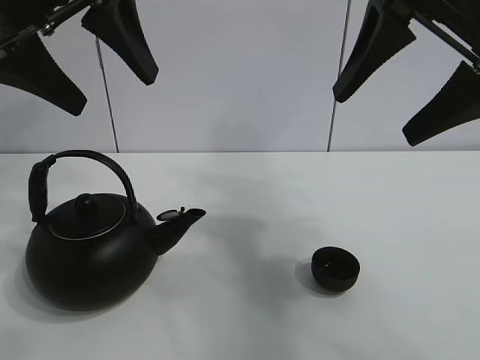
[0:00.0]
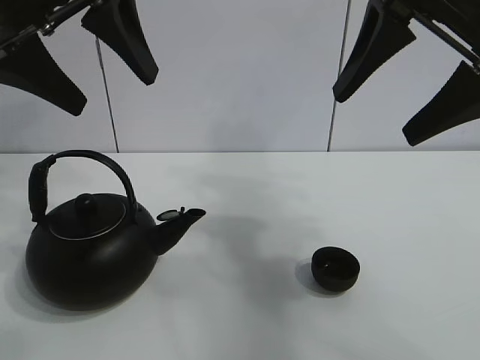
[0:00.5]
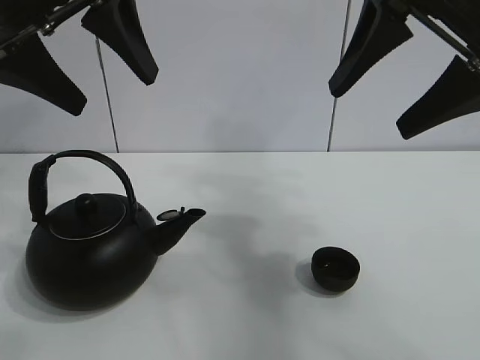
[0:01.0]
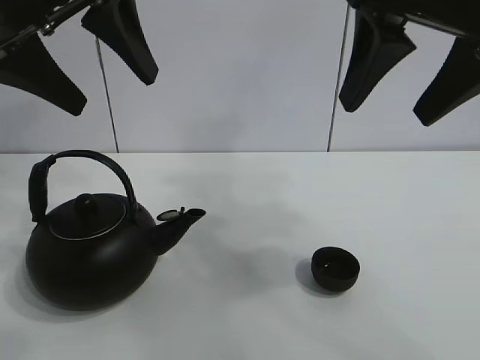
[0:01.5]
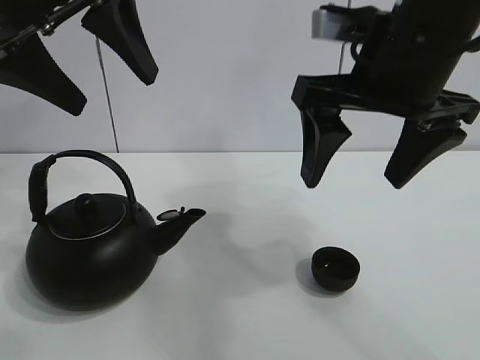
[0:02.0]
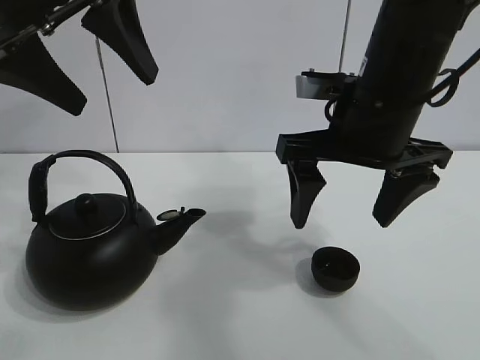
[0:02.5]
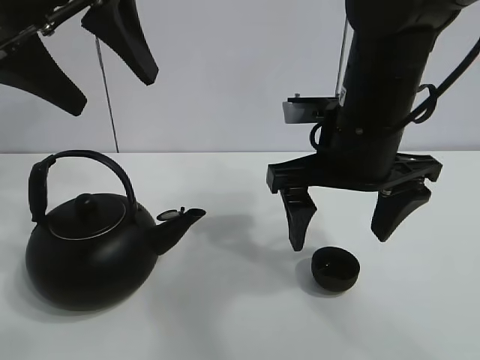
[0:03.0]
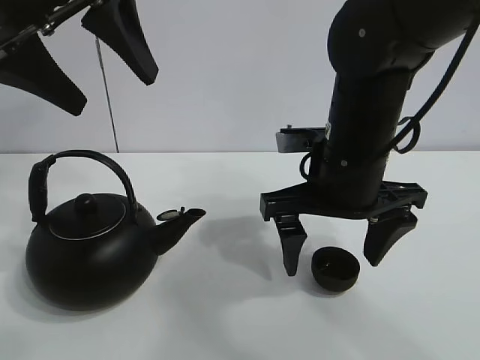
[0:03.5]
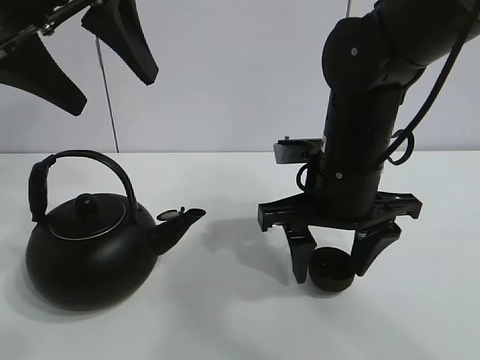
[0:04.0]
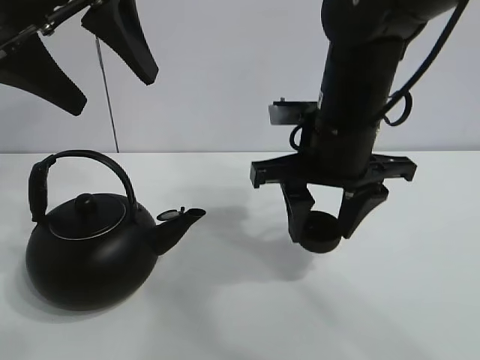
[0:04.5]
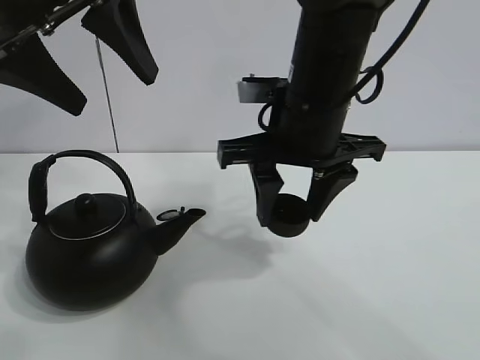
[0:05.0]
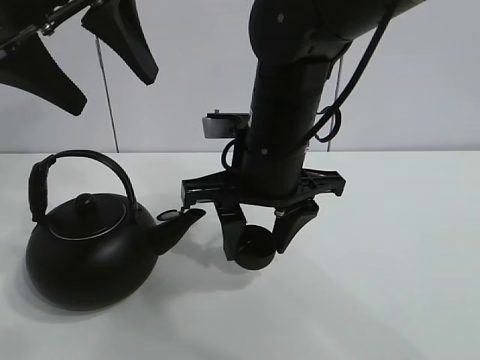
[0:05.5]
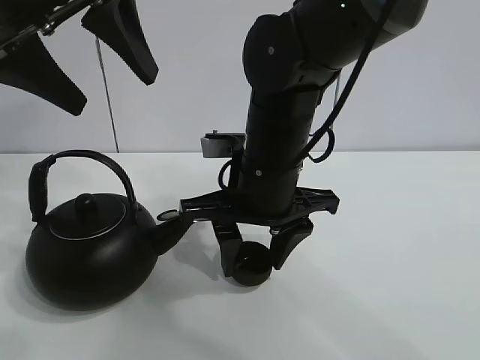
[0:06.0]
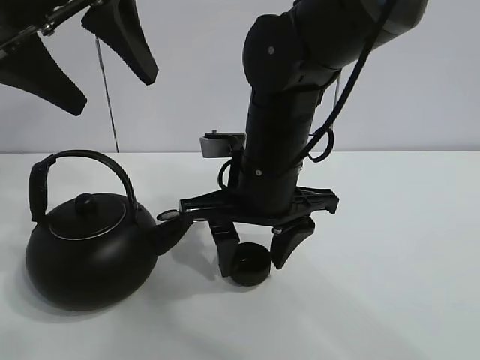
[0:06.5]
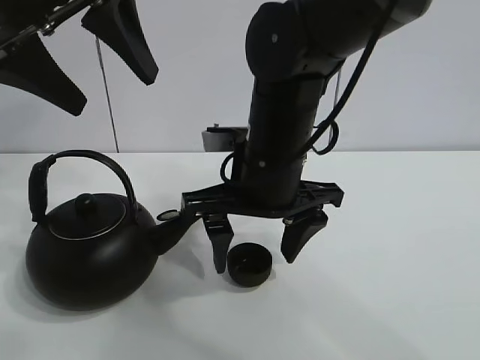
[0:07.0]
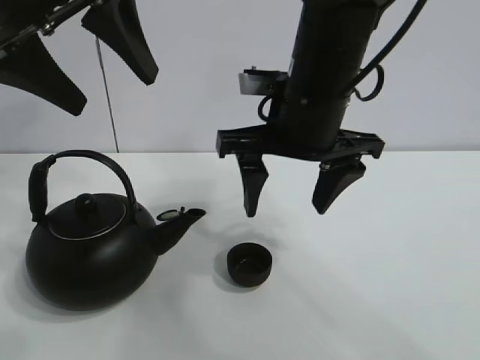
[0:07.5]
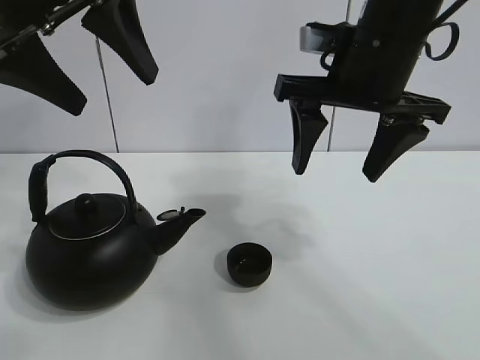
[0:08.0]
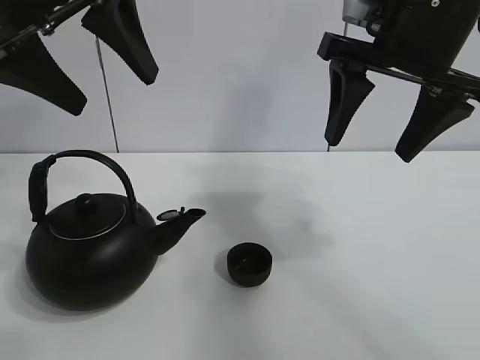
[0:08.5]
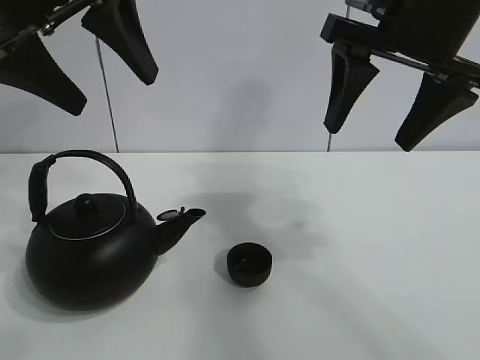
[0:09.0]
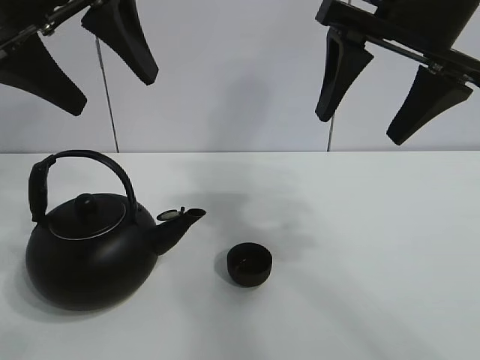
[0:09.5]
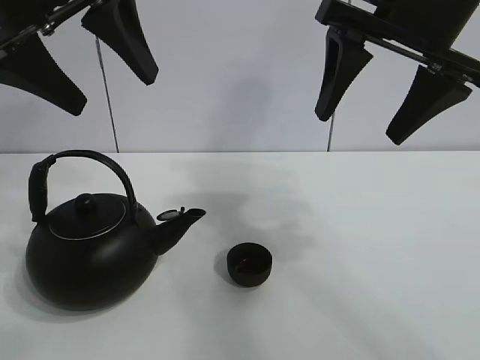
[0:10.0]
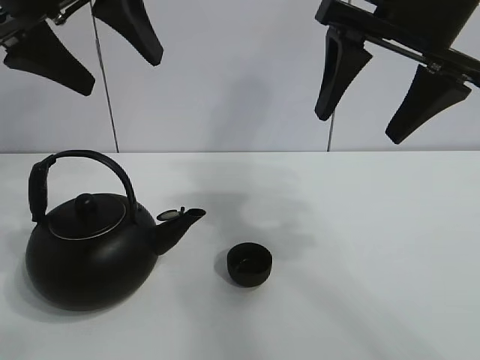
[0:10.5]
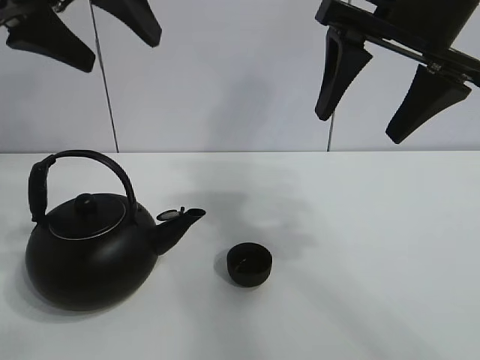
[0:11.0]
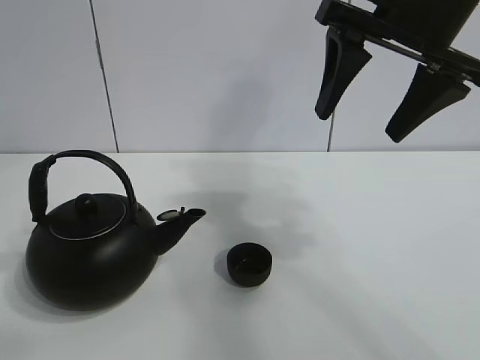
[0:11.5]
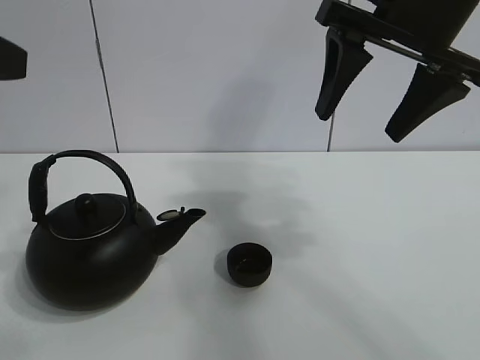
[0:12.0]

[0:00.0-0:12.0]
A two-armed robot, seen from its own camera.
Task of the whole recording: pour tea into the teacup.
Step, 0:00.0 to 0:04.0: Pick up the teacup with the right gripper.
Step, 0:04.5 to 0:06.5: Place the teacup in the center of view with the right gripper.
0:02.0 to 0:04.0: The right gripper moves downward, some 10 cm, and closes up.
0:04.0 to 0:06.0: The right gripper is displaced to the left by some 5 cm, and closes up.
0:06.0 to 0:08.0: The right gripper moves upward and to the right, approximately 15 cm, and opens its fingers.
0:08.0 to 0:10.0: The right gripper goes roughly 5 cm upward.
0:10.0 to 0:12.0: The left gripper is displaced backward and to the left by approximately 15 cm.

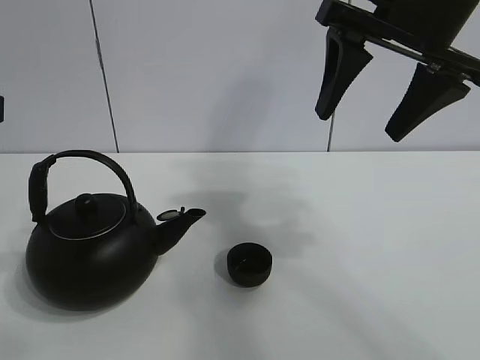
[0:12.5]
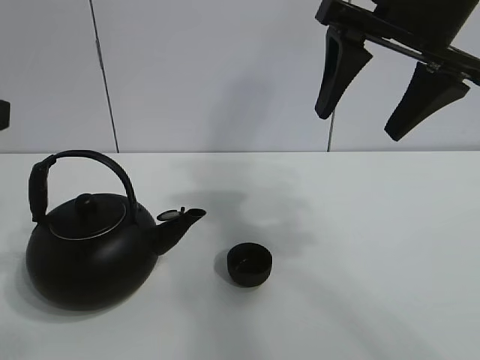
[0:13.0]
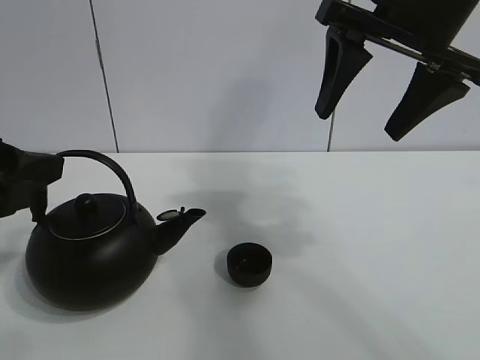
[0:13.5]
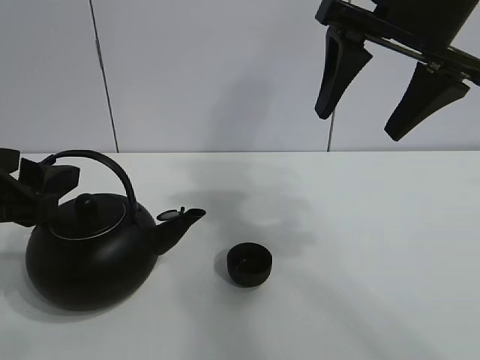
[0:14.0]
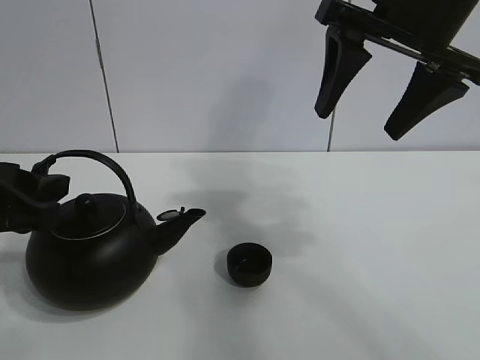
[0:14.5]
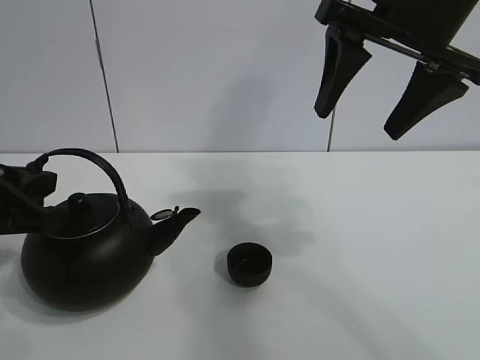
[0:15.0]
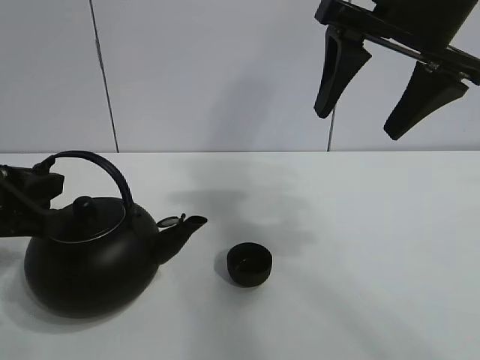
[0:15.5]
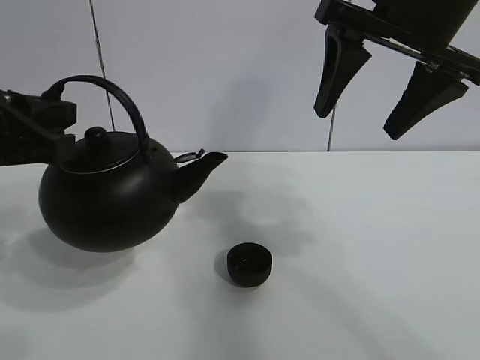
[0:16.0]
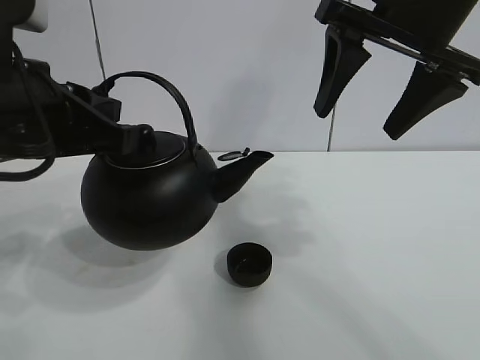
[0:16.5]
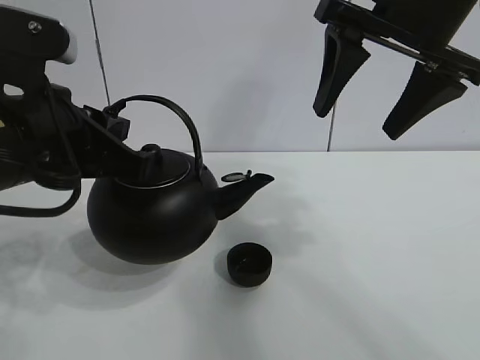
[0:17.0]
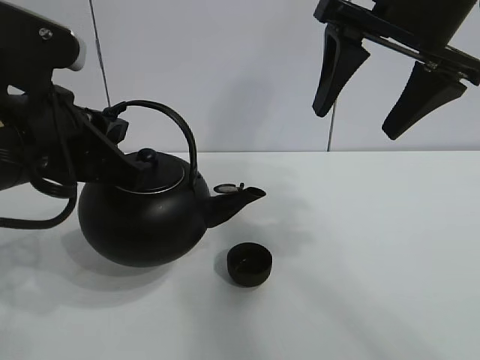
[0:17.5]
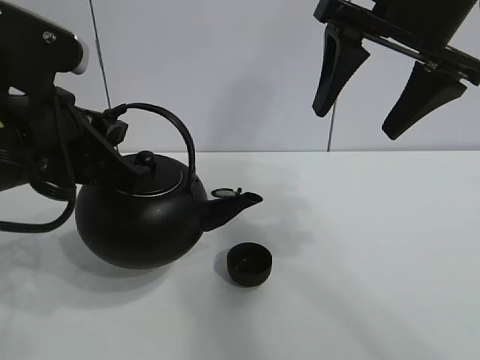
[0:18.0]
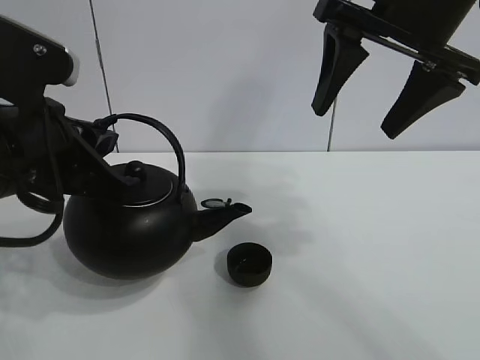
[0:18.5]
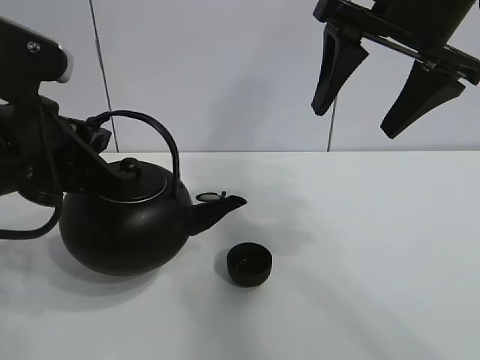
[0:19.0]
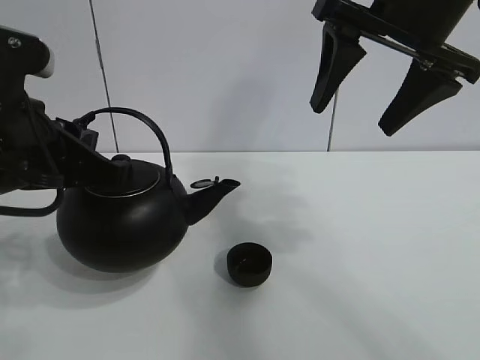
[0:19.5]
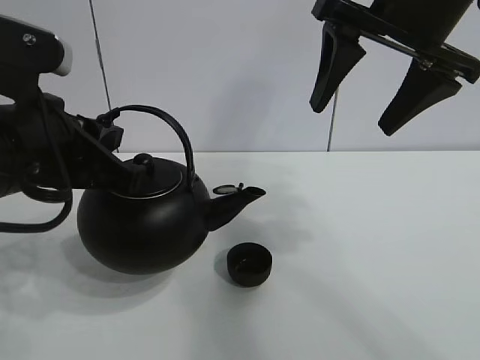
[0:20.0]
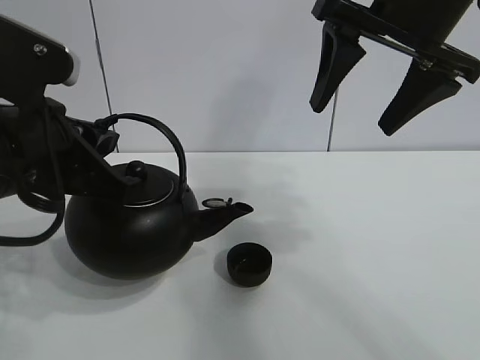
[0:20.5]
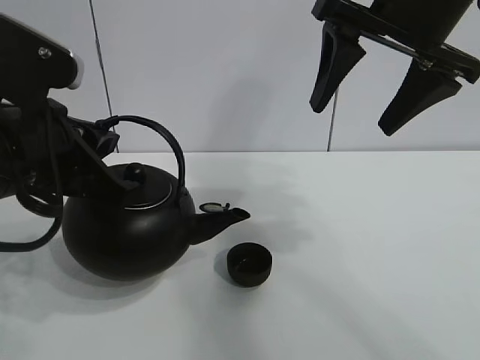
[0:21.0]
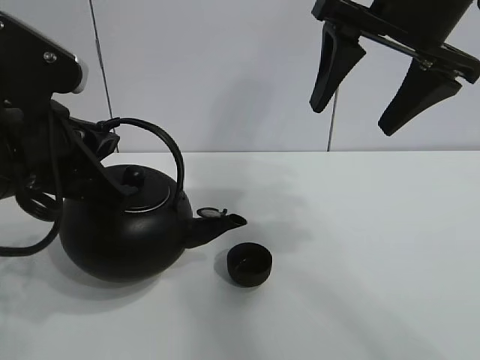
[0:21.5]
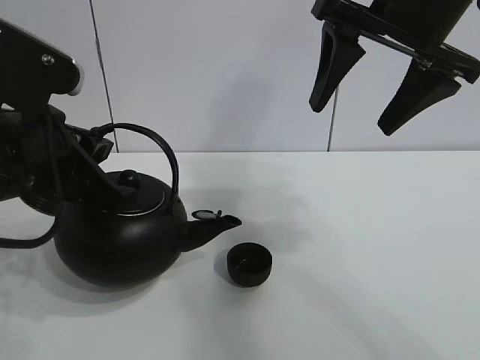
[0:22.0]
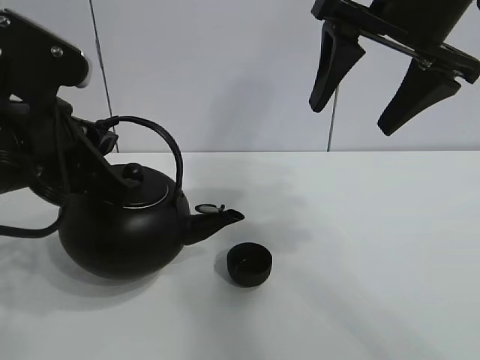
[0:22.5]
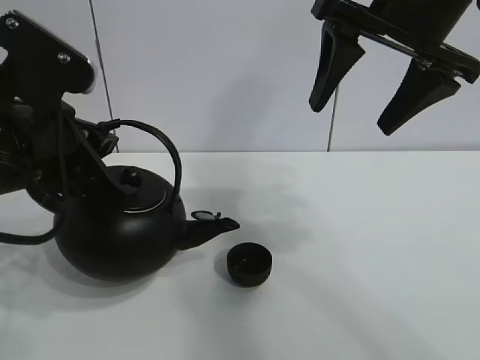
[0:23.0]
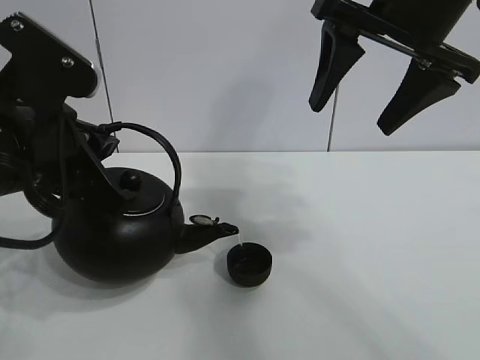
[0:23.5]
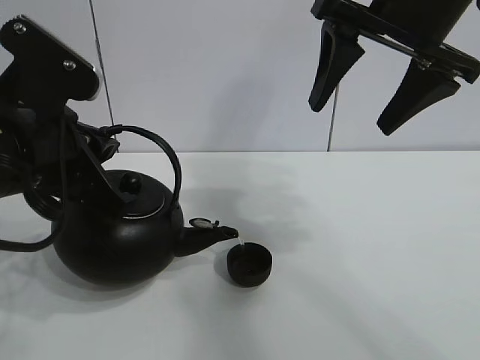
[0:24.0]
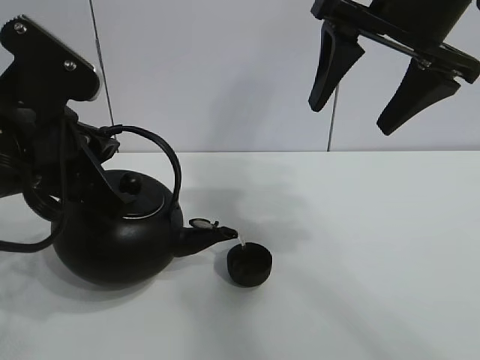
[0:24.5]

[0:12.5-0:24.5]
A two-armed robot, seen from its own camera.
Task of the whole recording: pour tea into the teacup.
Step, 0:12.5 to 0:14.5: Pick up the teapot with the left gripper.
0:12.5 to 0:14.5: The left gripper heads downward and forward, covering some 10 cm.
0:14.5 to 0:16.5: The left gripper moves to the right and upward, about 10 cm, and closes.
0:16.5 to 0:22.5: The grippers move only a little.
0:22.5 to 0:24.5: The grippers move only a little.

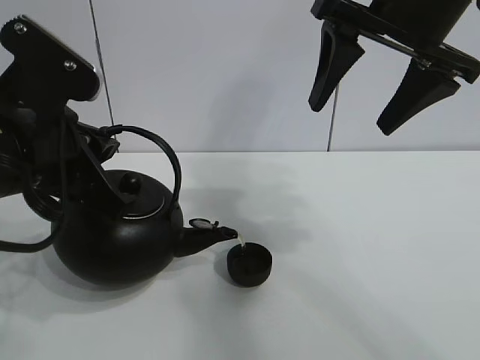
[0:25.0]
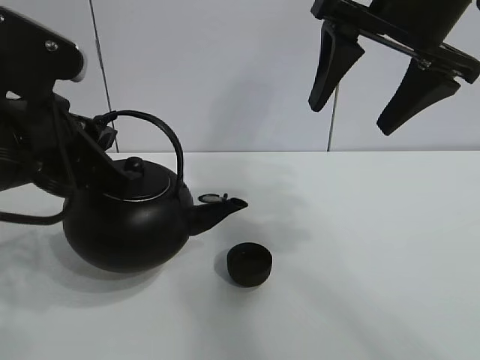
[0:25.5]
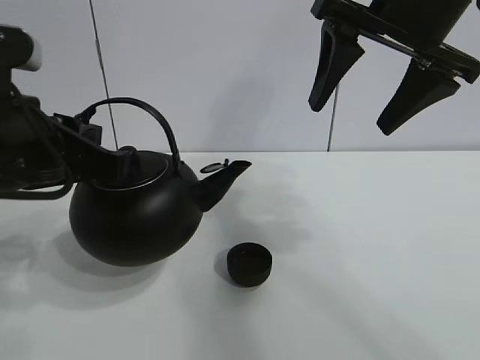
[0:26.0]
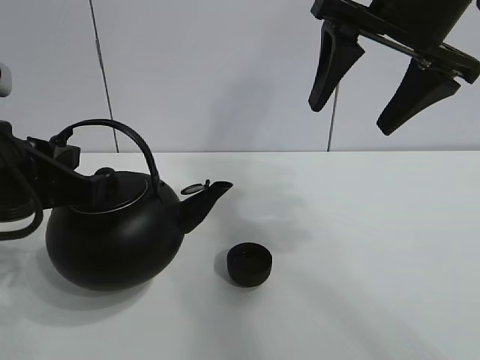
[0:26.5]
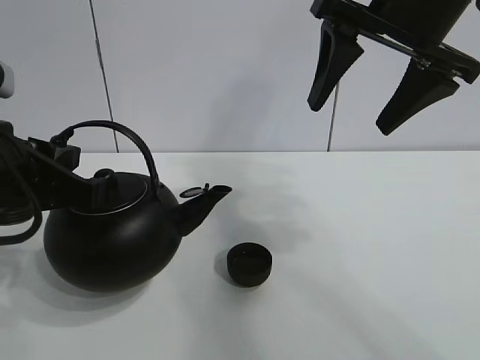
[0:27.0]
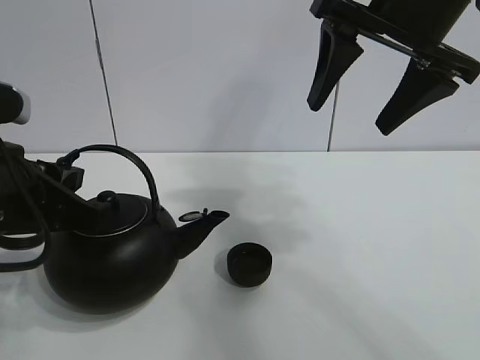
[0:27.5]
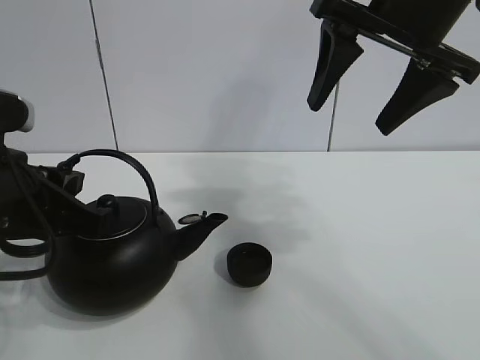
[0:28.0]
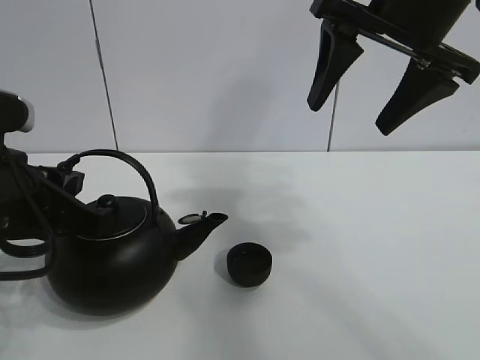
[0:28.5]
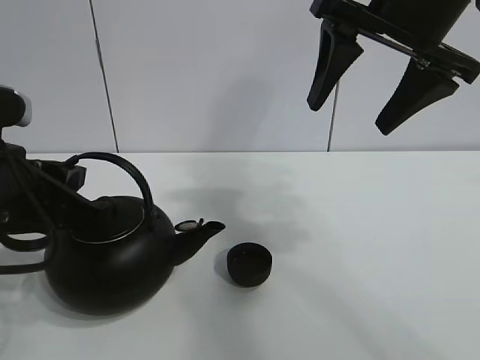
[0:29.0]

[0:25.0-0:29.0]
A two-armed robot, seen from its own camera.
Task of the whole recording: pour tea into the teacup.
0:27.0 to 0:29.0: The grippers stay close to where they were, moving slightly.
